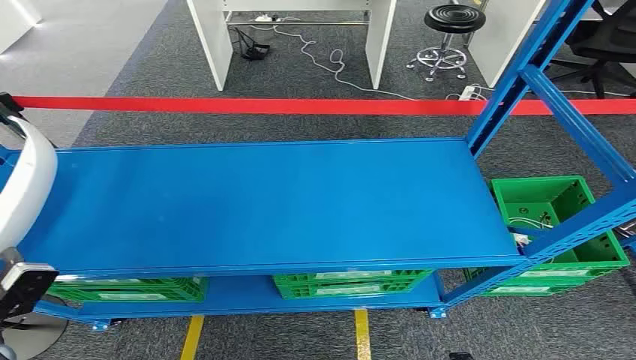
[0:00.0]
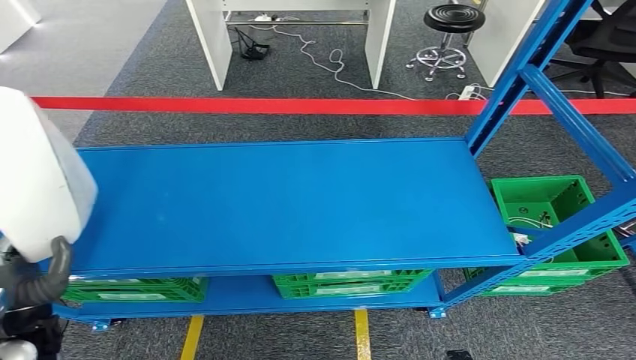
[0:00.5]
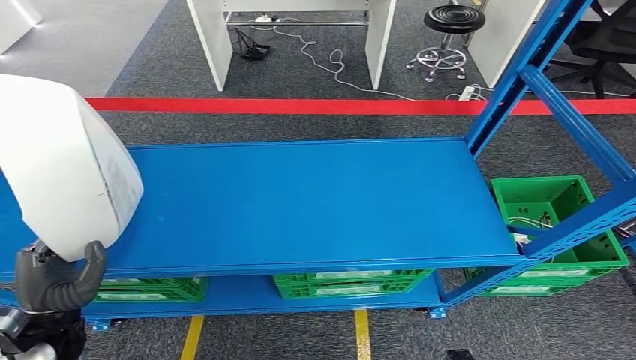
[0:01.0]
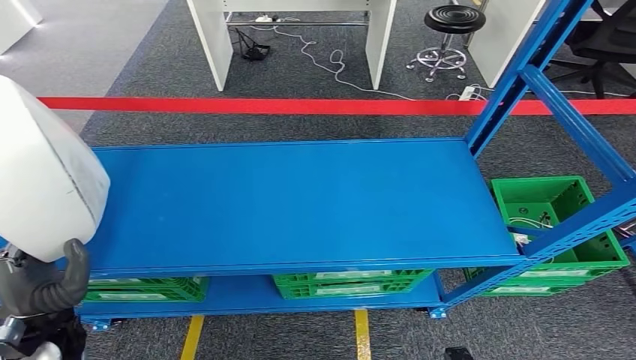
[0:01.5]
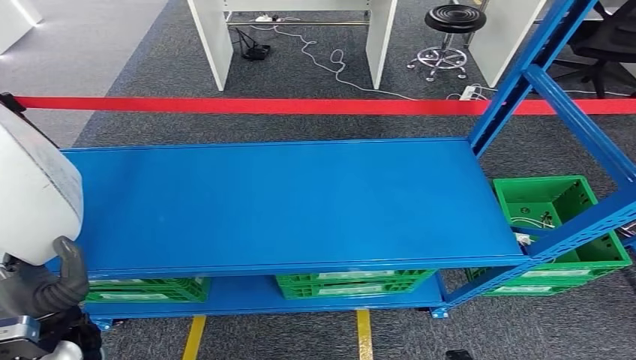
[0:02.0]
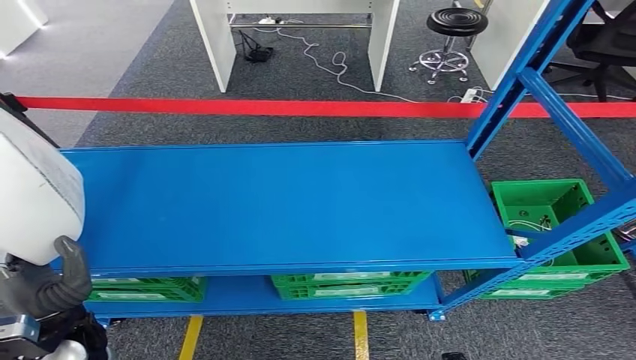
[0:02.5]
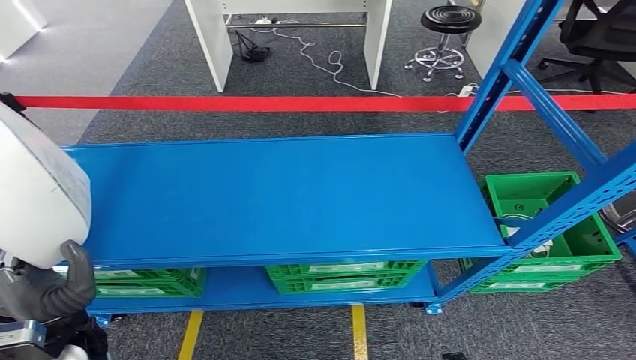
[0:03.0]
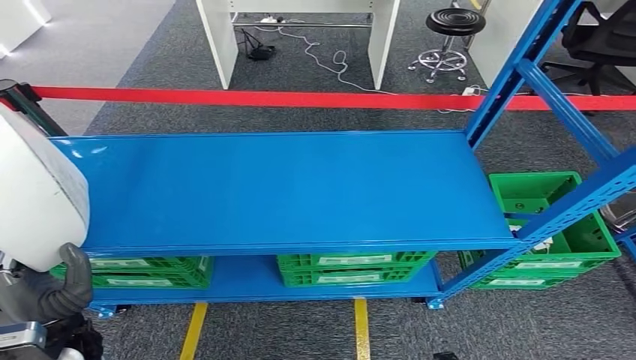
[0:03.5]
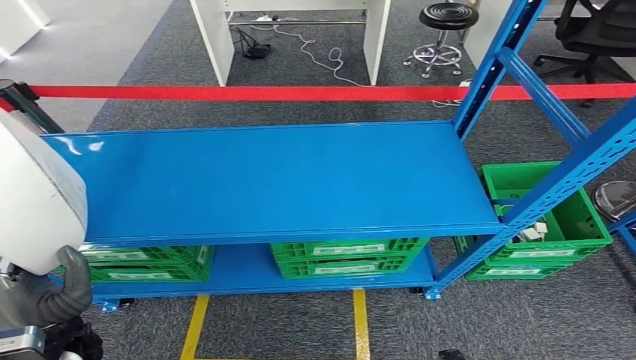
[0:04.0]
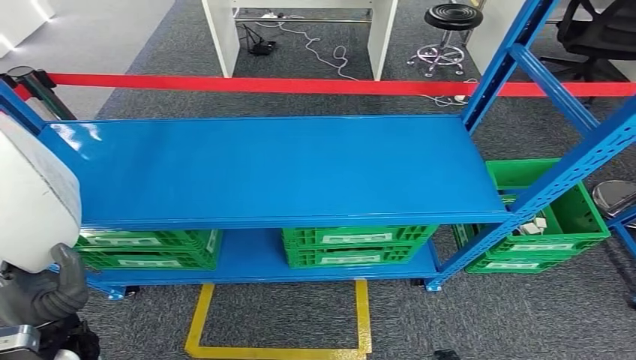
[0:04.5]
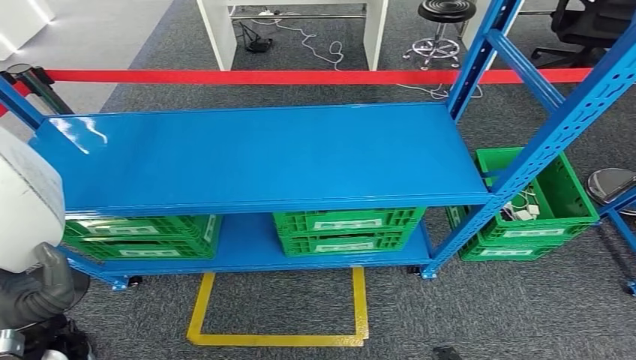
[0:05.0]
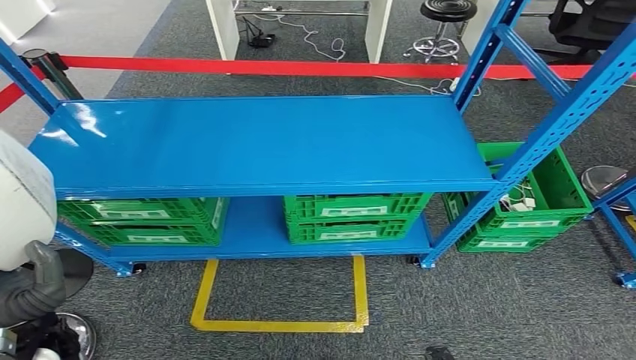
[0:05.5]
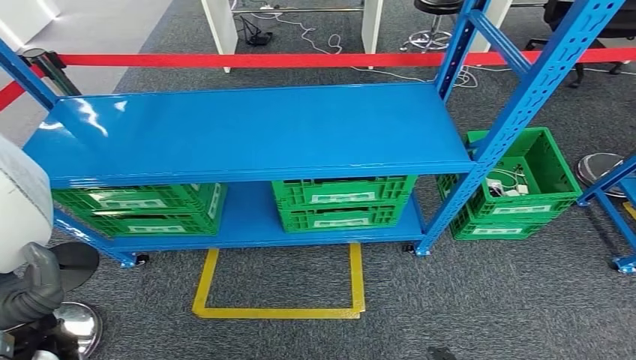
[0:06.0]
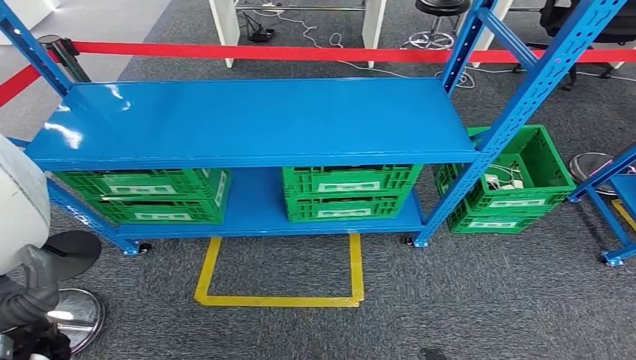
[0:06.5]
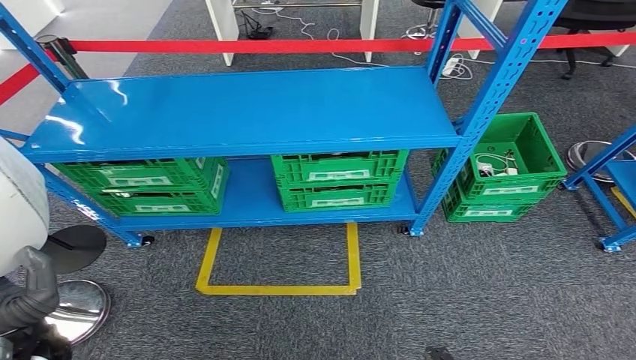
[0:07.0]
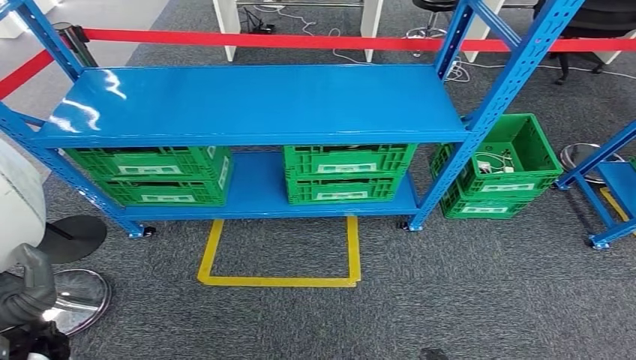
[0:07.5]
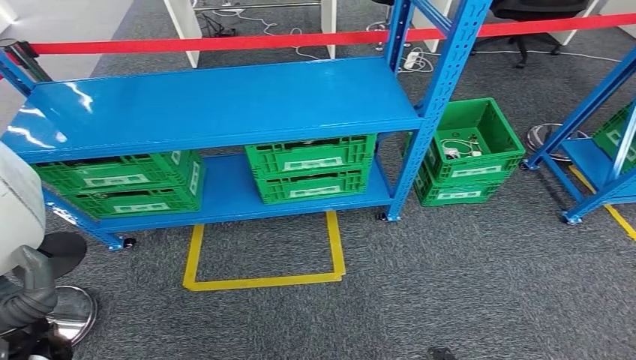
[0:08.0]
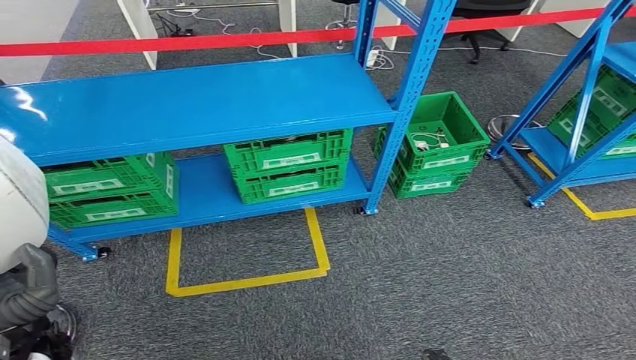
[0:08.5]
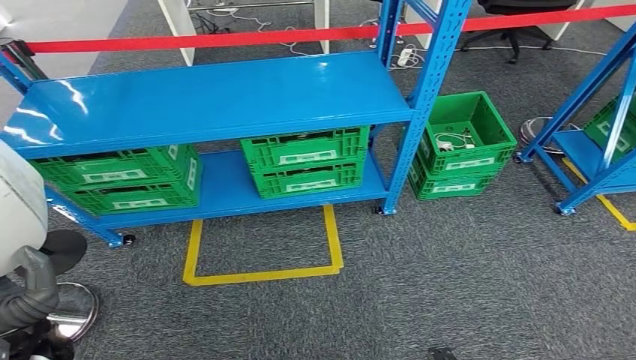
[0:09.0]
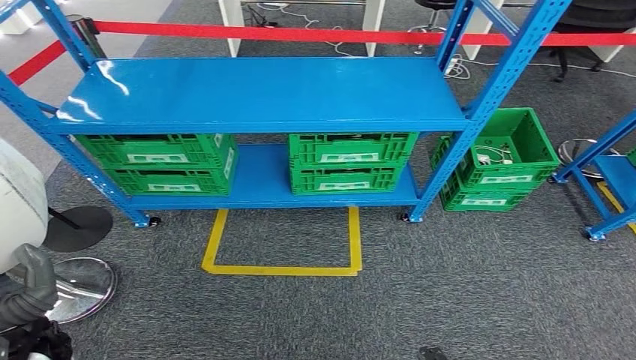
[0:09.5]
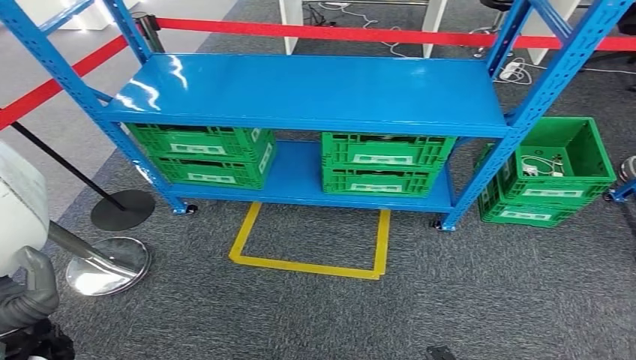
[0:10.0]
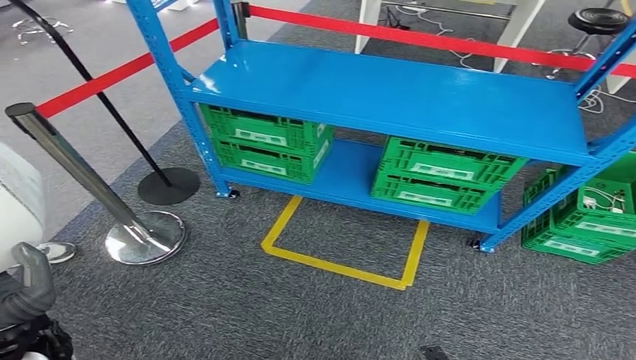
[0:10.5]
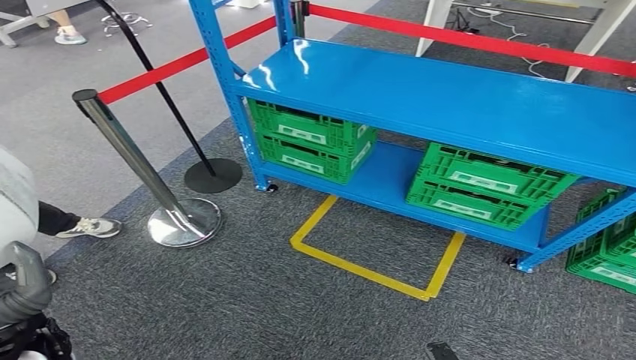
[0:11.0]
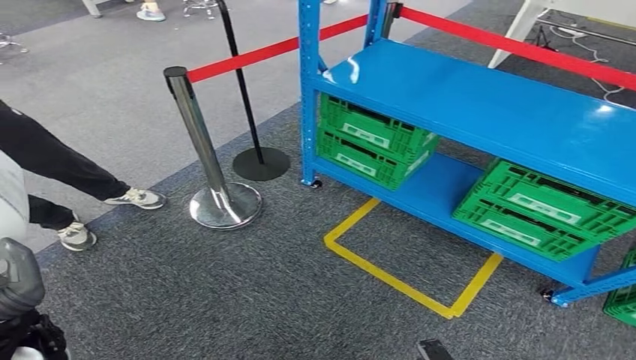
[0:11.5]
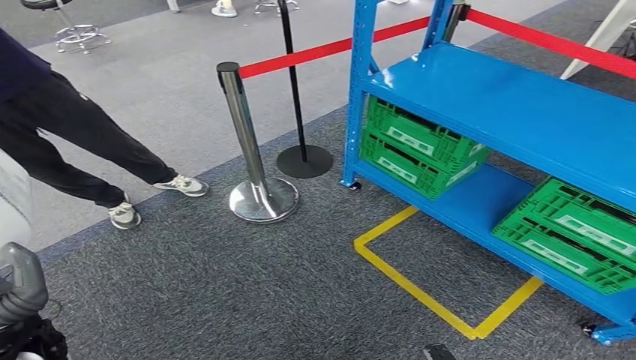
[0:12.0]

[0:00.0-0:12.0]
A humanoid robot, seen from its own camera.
Step, 0:00.0 to 0:04.5: Pick up the small component from the shelf.

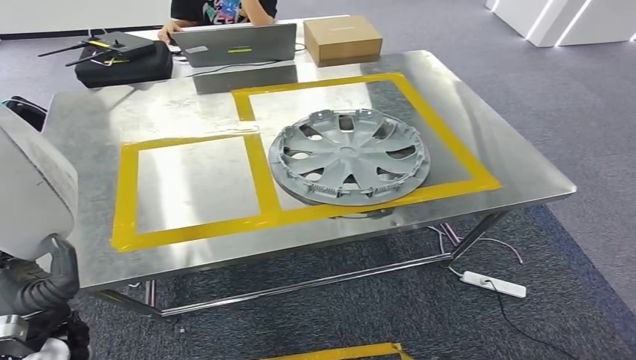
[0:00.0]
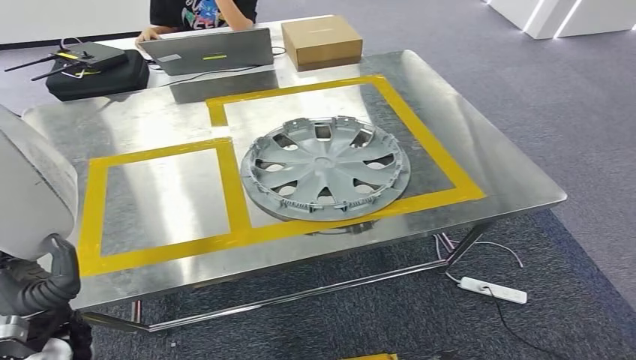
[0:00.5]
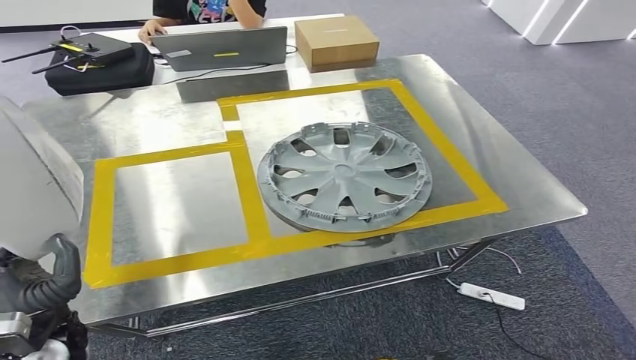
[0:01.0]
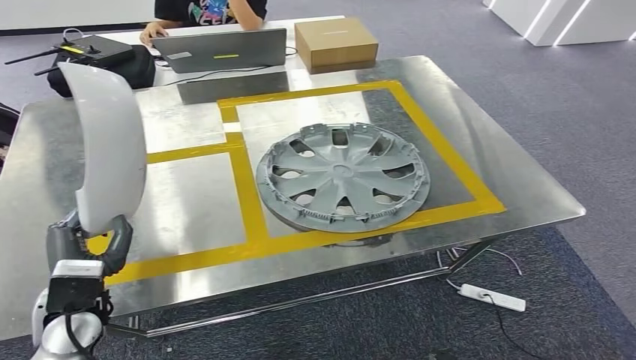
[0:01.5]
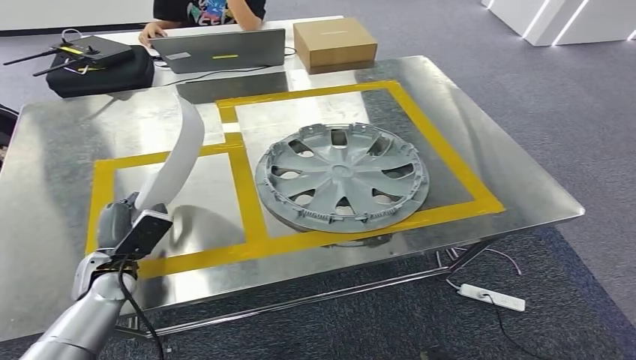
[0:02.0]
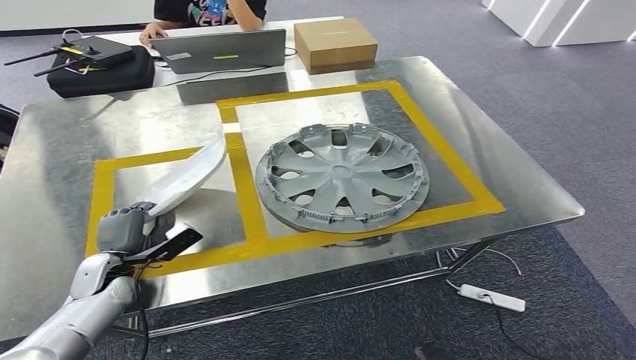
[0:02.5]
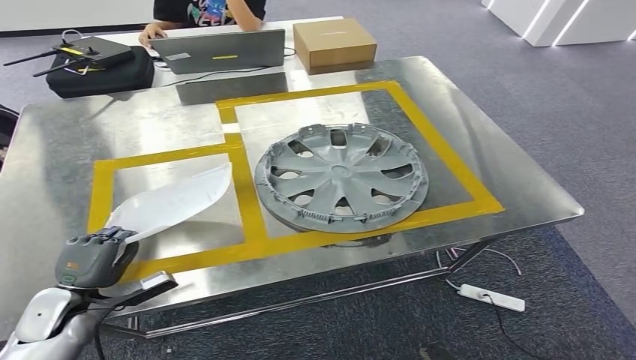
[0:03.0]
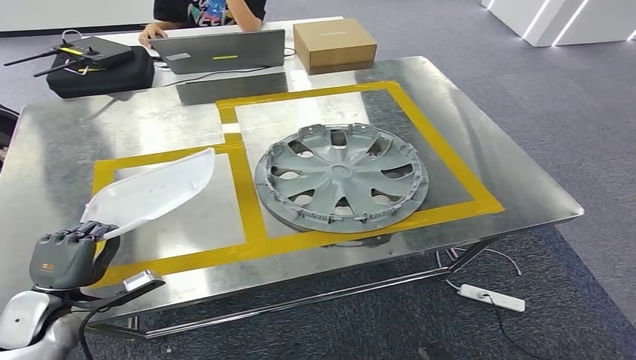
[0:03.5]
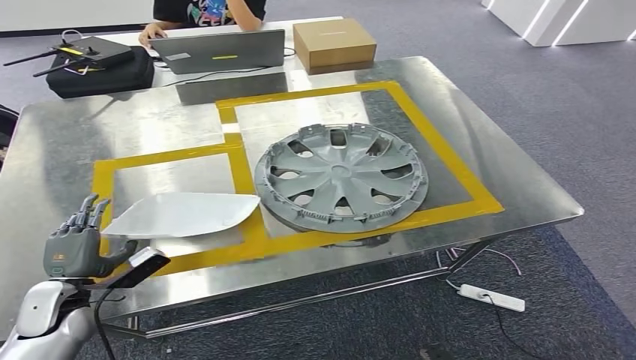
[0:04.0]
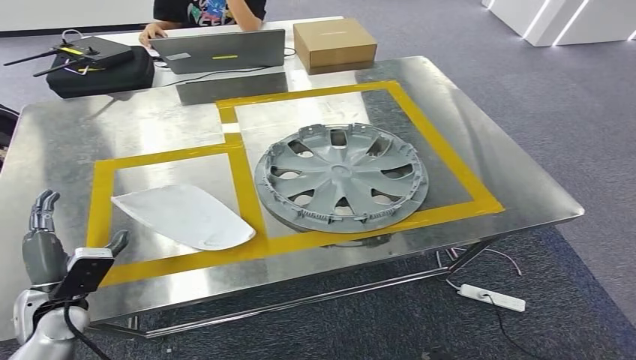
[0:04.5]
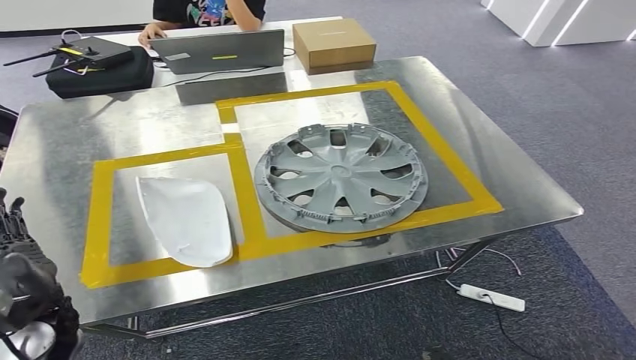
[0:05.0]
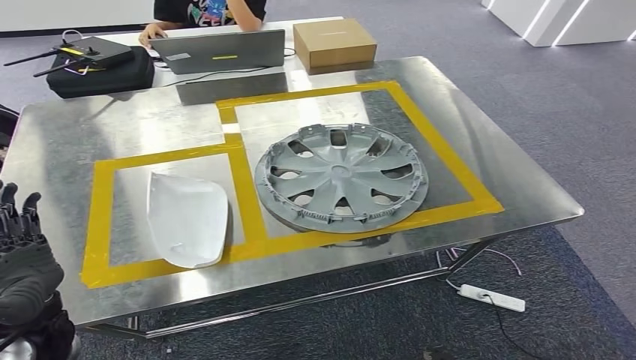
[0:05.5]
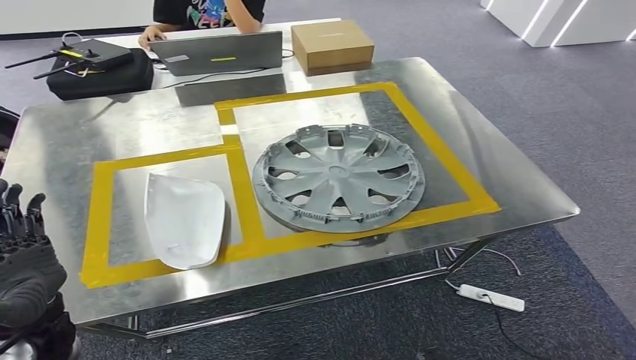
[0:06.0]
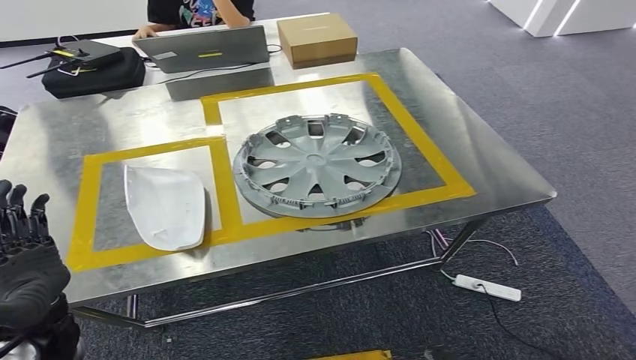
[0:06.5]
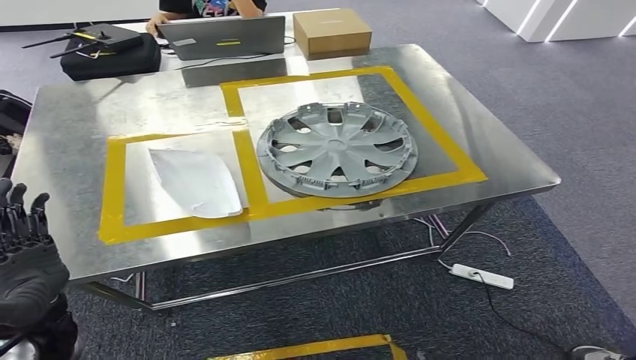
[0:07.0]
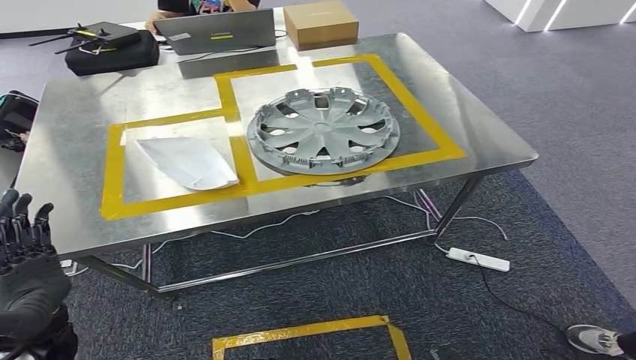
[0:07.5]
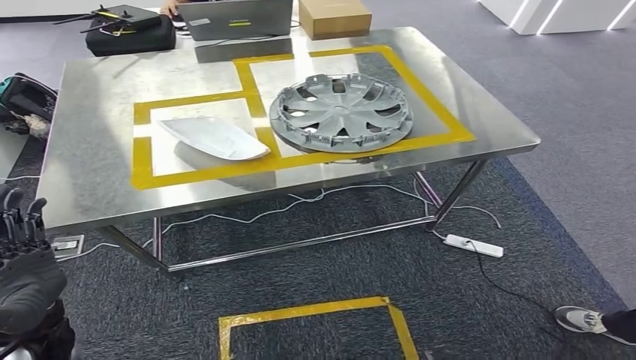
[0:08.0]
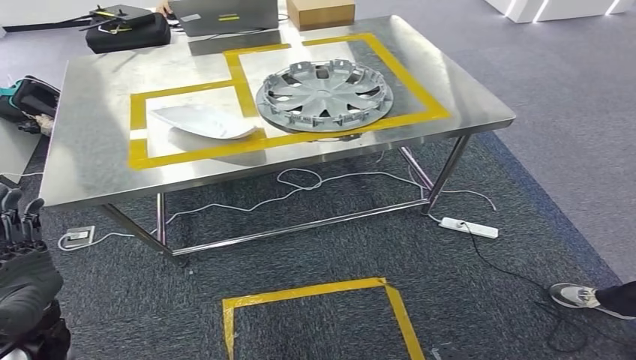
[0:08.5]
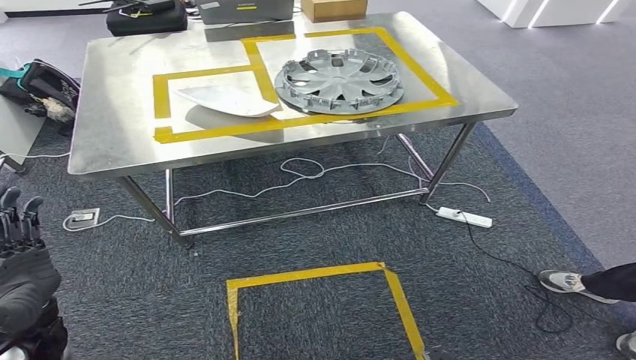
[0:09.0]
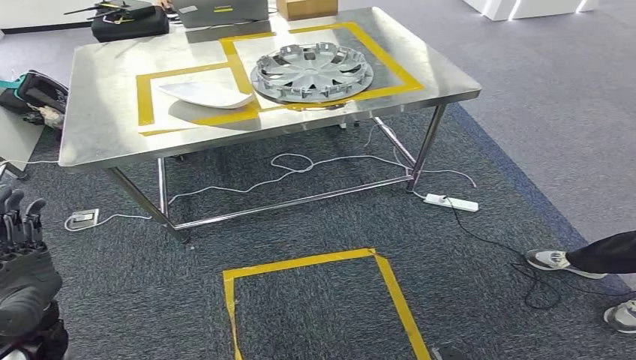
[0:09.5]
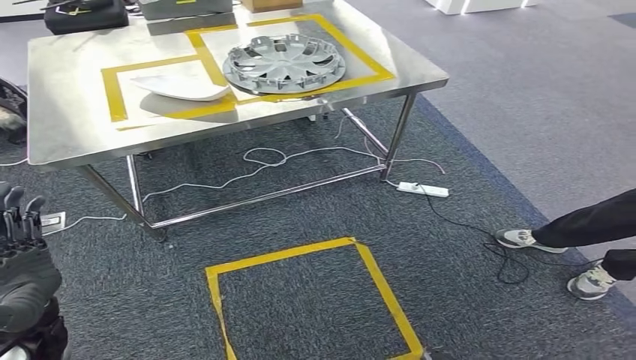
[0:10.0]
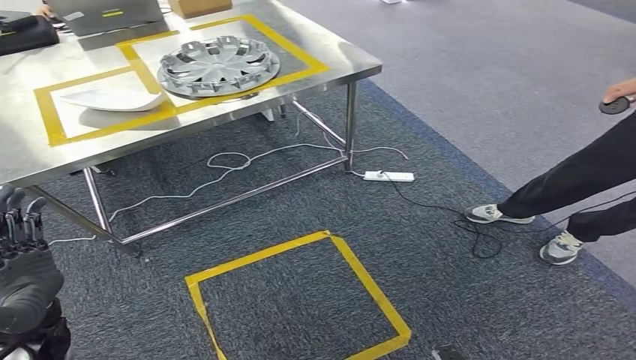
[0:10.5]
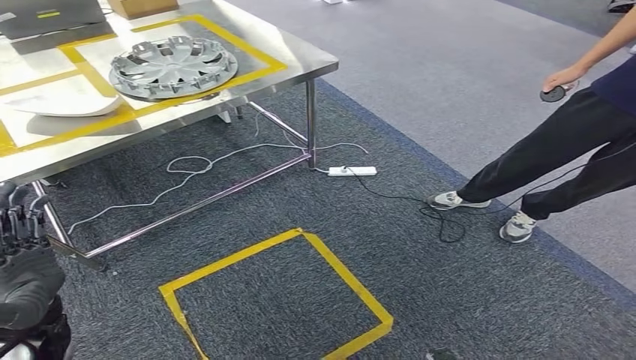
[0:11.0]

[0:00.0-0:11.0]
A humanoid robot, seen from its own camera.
Step, 0:00.0 to 0:05.5: Insert the small component into the corresponding slot on the workbench.
0:02.0 to 0:03.5: The left hand travels to the left and backward by about 10 cm.
0:03.5 to 0:05.5: The left hand travels upward and to the right by roughly 15 cm.
